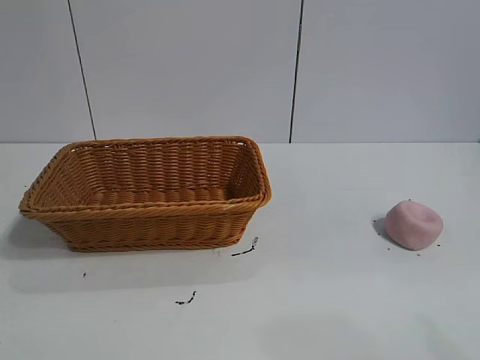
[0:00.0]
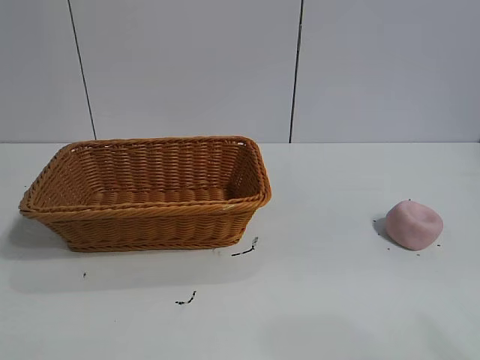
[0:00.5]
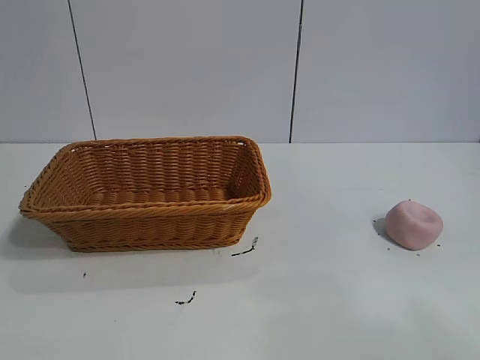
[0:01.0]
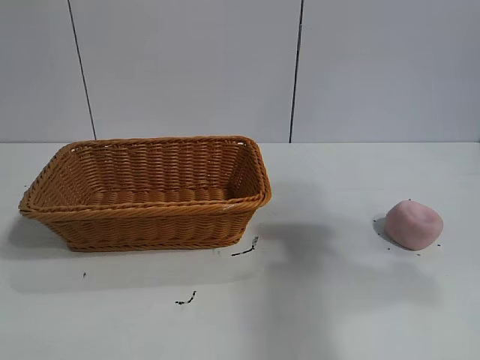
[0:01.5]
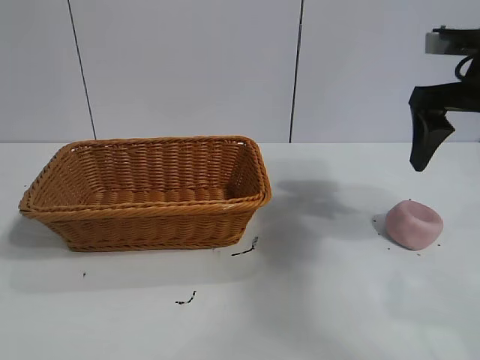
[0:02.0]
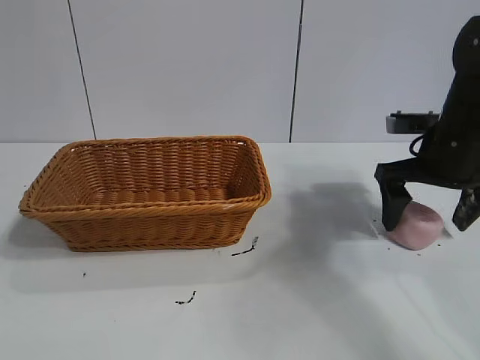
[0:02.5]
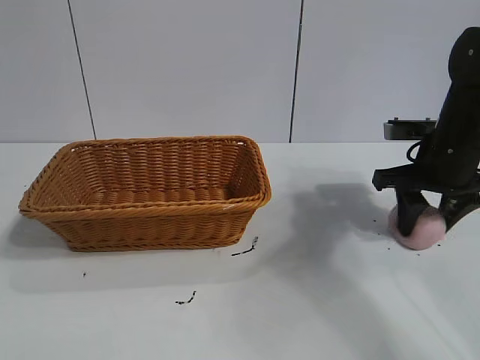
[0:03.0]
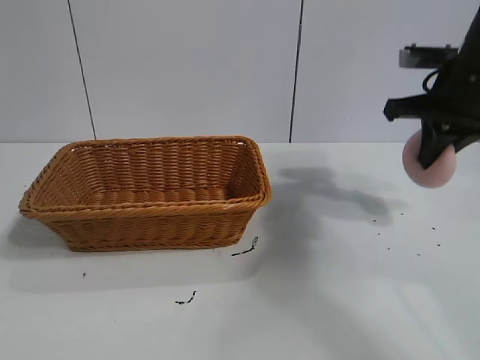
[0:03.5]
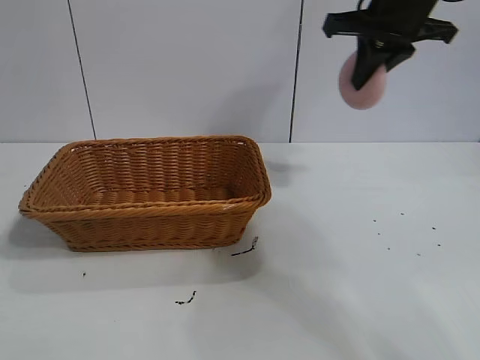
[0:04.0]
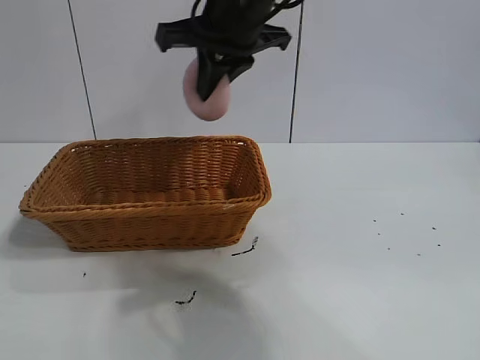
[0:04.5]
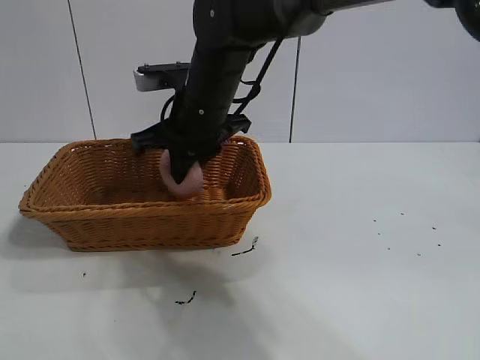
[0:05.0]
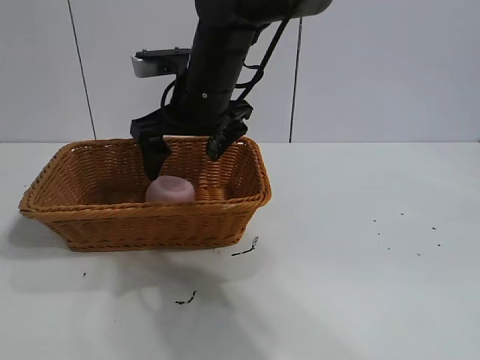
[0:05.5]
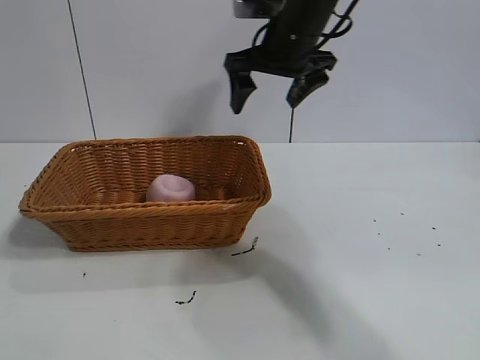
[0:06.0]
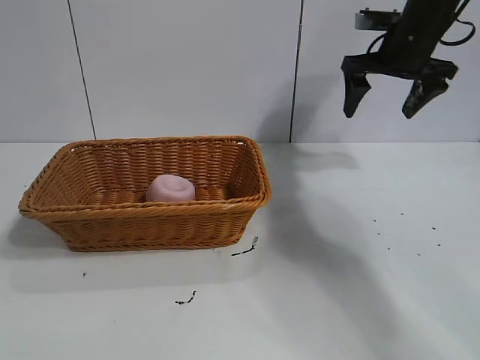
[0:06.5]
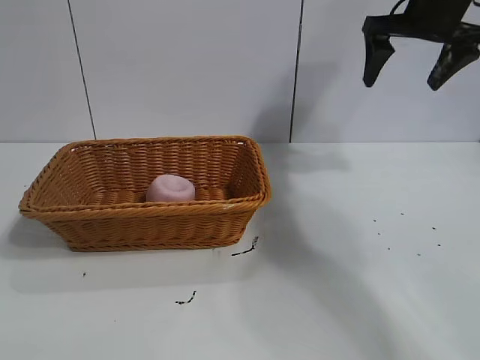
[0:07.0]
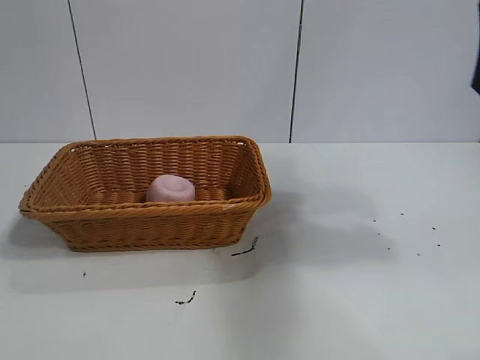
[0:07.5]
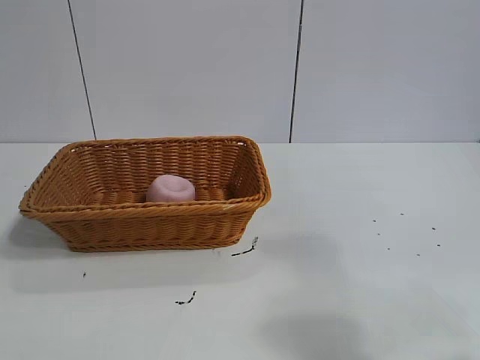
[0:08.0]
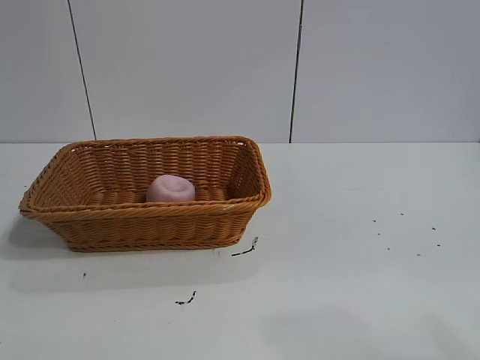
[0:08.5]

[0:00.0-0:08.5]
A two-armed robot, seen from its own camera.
Task of the whole recording: pick up the peach and put it into the basket.
Step, 0:01.0 to 0:03.0: Grasp the peach with right gripper.
Step, 0:03.5 to 0:05.0: Place the peach in the basket with right gripper.

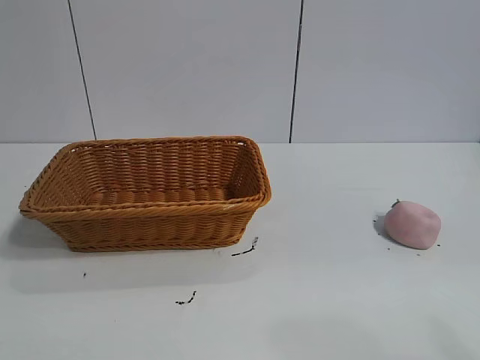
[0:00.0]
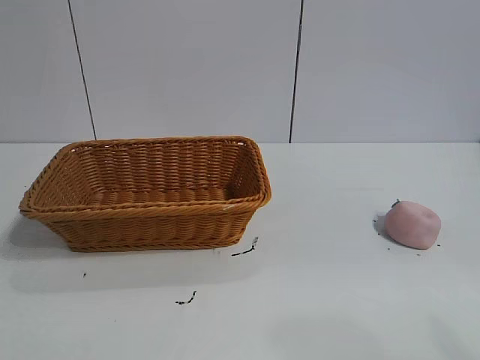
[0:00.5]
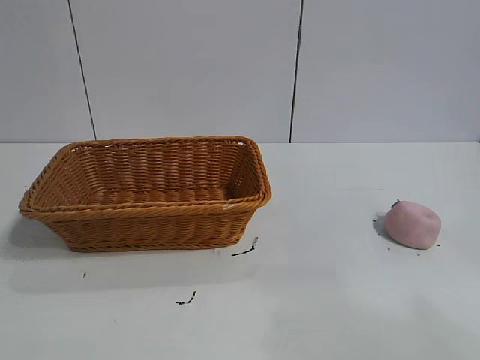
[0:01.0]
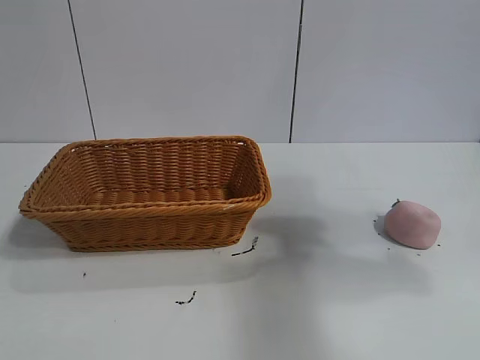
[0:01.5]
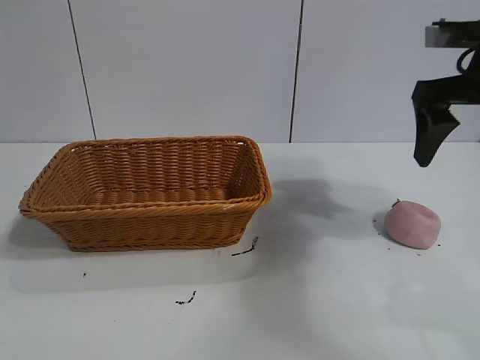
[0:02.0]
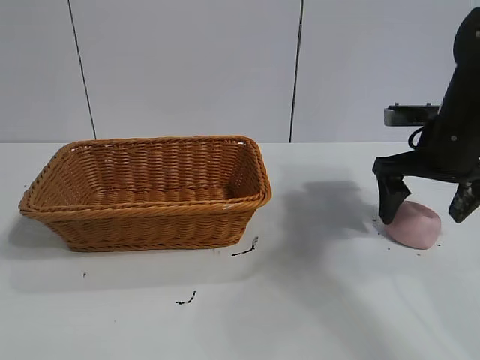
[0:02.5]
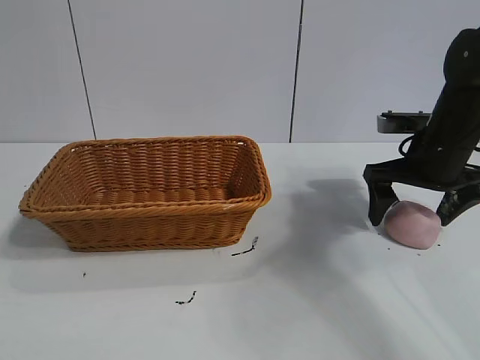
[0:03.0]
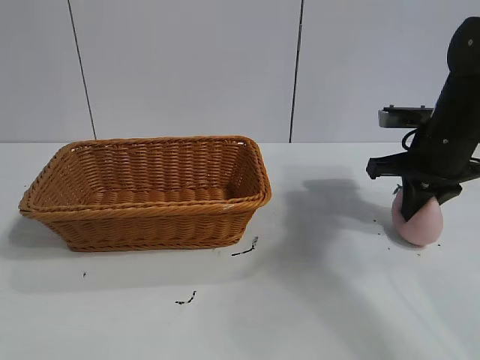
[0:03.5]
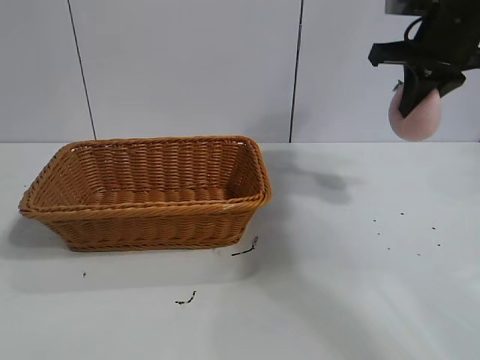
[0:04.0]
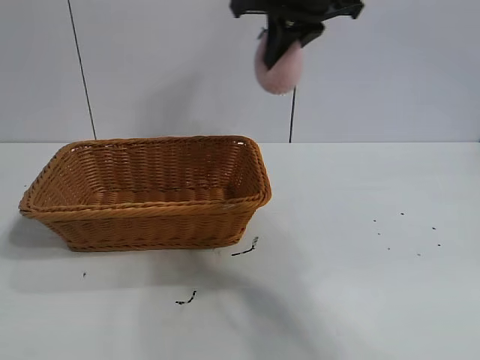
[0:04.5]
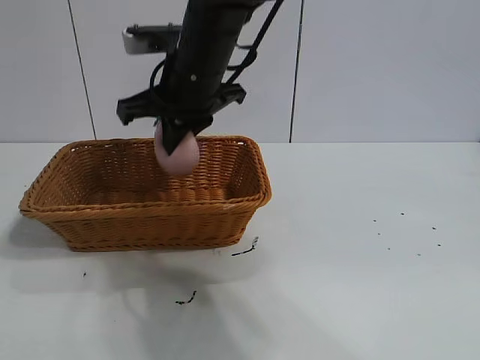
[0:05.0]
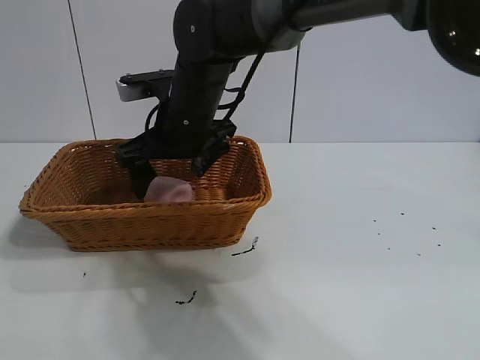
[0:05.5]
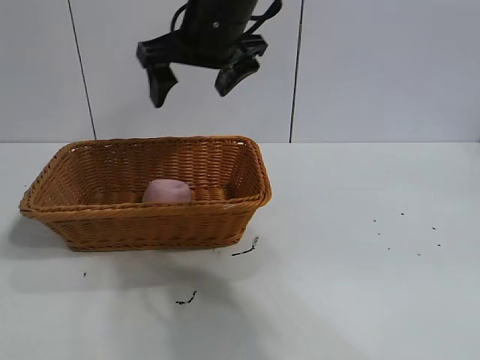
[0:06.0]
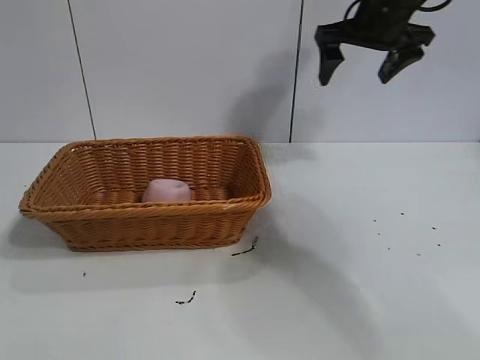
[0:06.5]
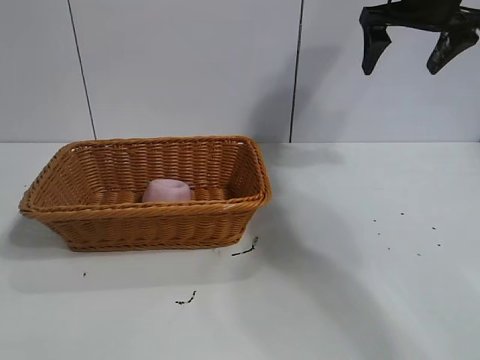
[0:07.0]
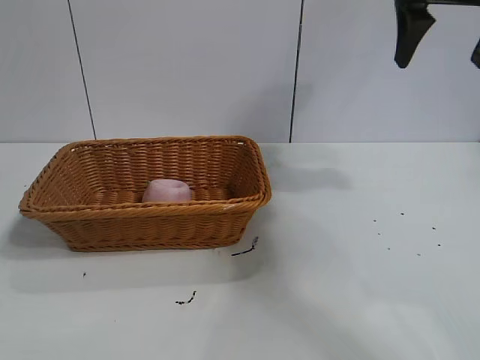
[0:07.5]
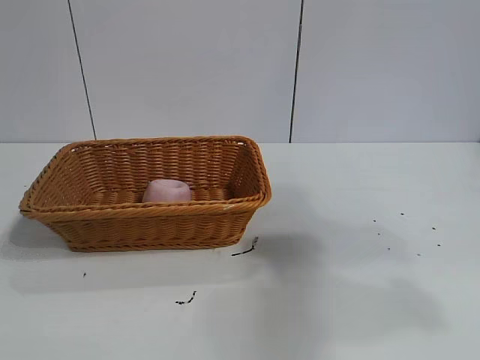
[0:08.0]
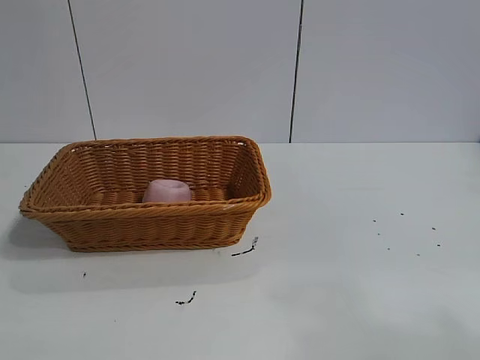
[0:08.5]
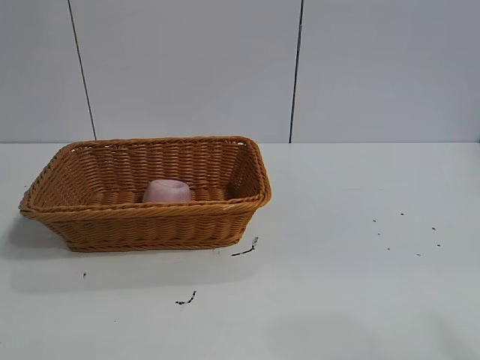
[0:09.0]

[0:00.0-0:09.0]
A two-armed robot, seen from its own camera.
Task of the whole recording: pick up the peach and put it into the basket.
Step, 0:01.0 to 0:03.0: Grasp the peach with right gripper.
Step, 0:03.5 to 0:05.0: Place the peach in the basket with right gripper.

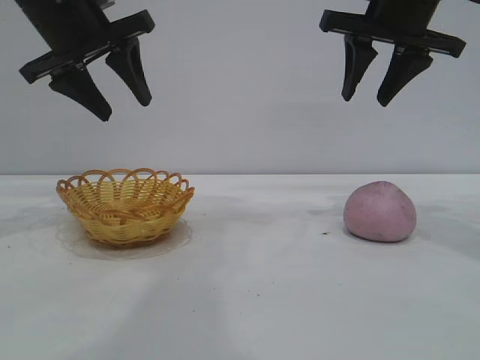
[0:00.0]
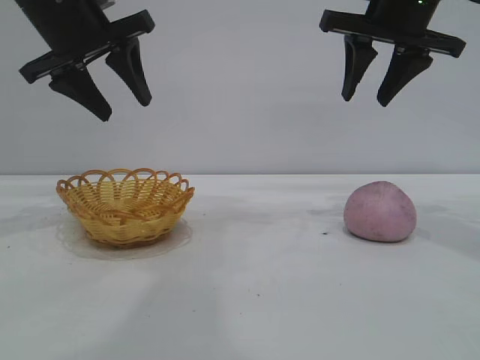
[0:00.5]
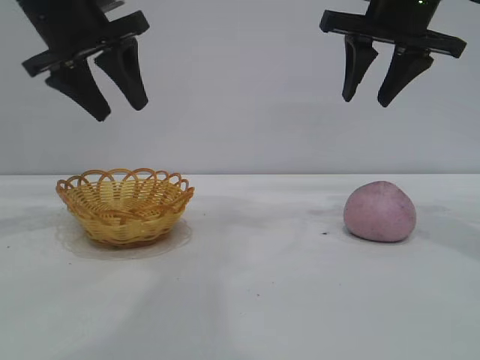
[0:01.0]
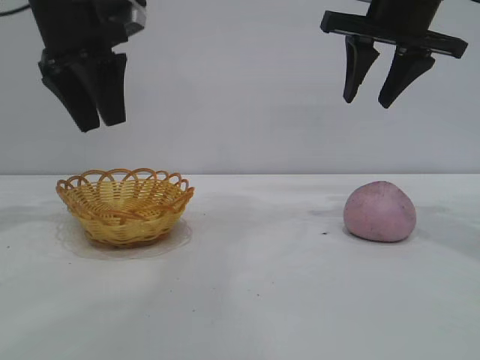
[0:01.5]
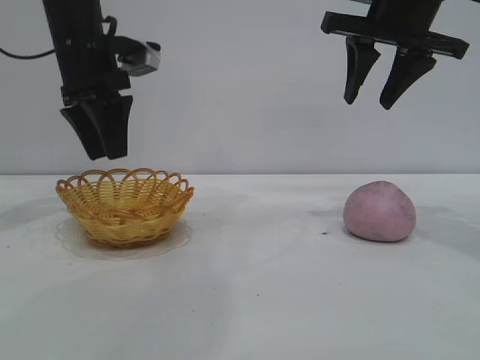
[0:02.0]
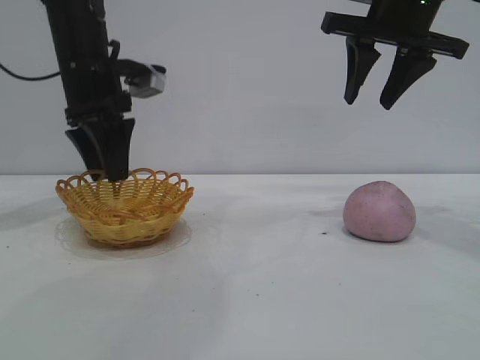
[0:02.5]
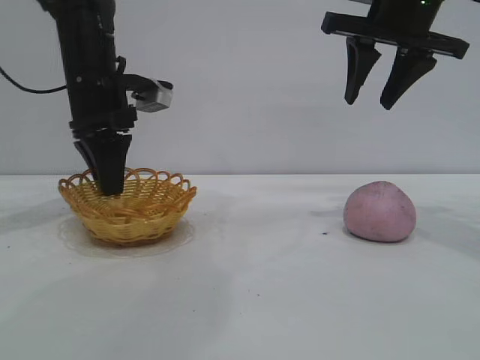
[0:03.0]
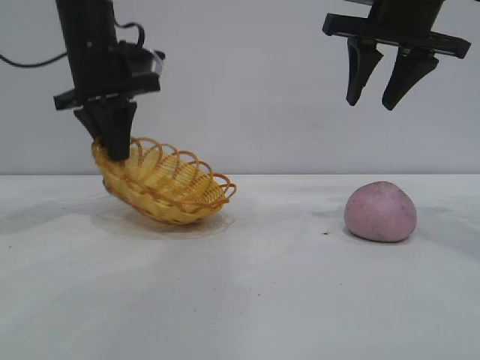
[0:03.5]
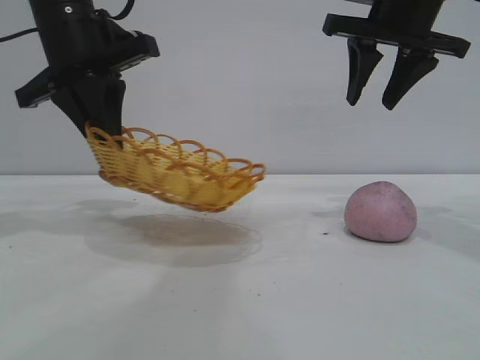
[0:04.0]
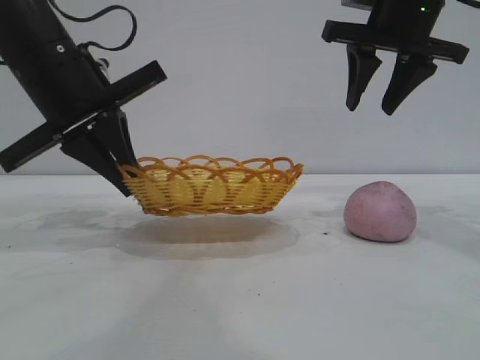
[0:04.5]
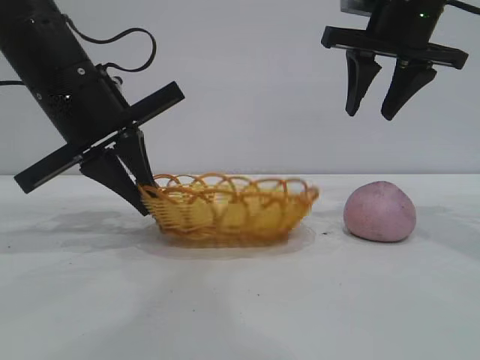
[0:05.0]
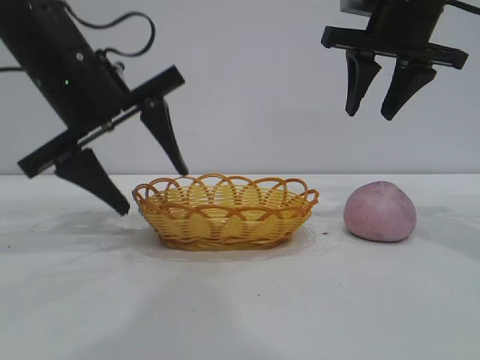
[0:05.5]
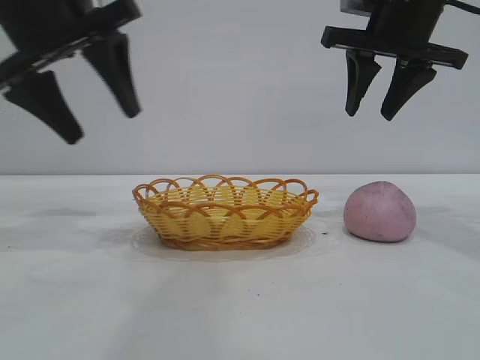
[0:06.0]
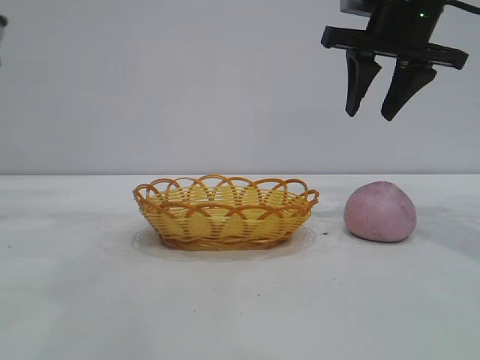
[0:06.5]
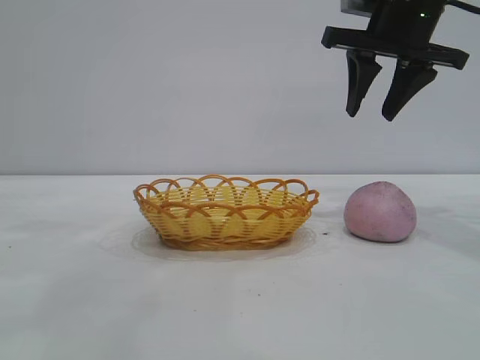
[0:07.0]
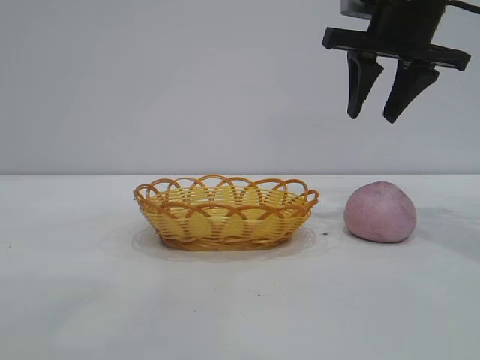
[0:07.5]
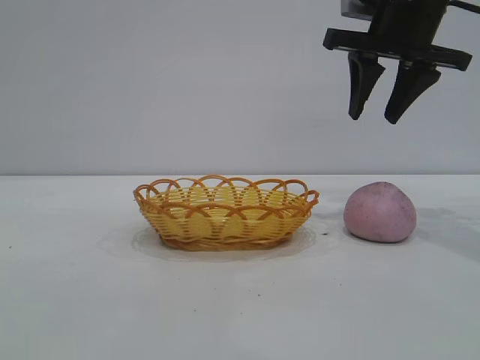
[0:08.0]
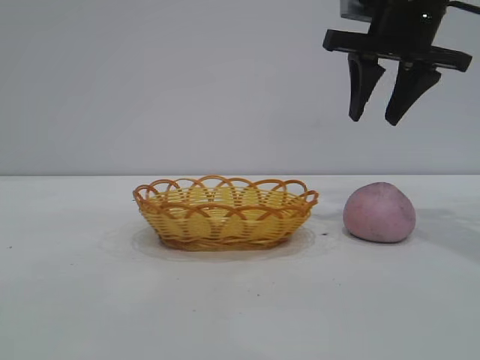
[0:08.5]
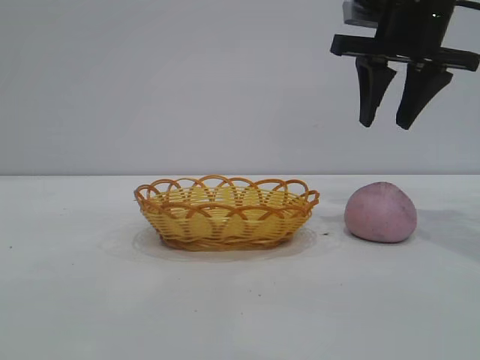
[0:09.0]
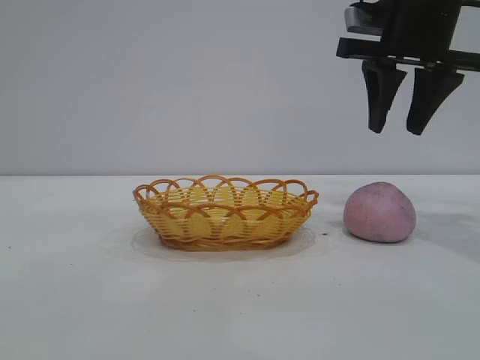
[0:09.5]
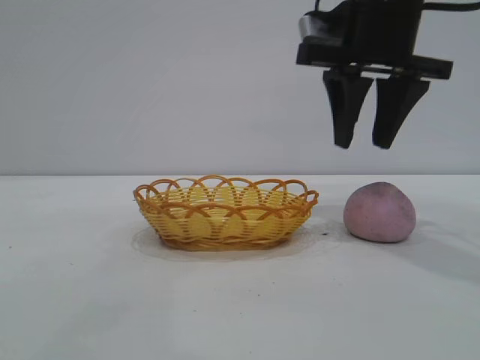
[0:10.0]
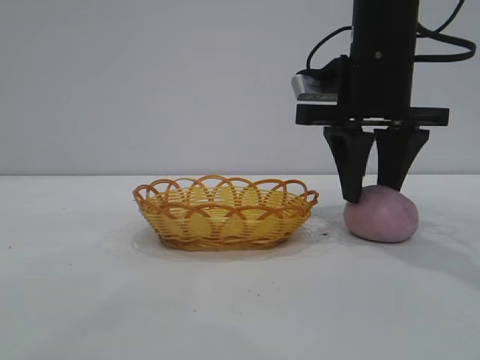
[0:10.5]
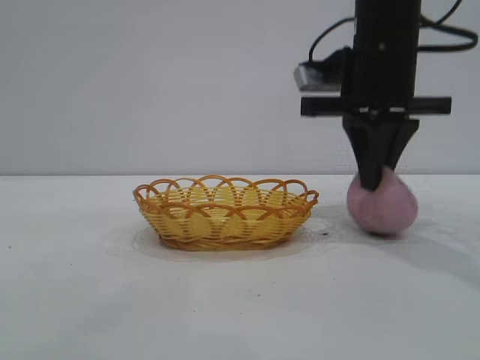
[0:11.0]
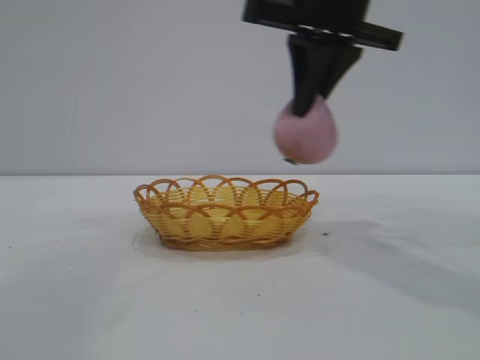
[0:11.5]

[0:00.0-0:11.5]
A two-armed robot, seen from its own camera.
Task of the whole recording: pick up the peach and put it into the basket.
Step, 0:00.0 to 0:05.5: Move the basket to the center of view.
Step, 0:06.0 to 0:11.0: Pick up the peach.
